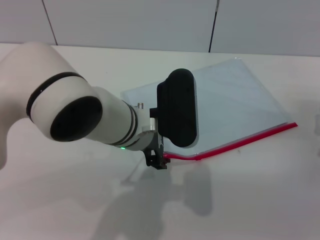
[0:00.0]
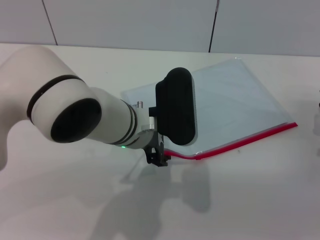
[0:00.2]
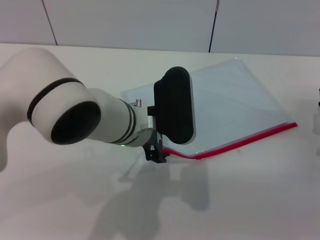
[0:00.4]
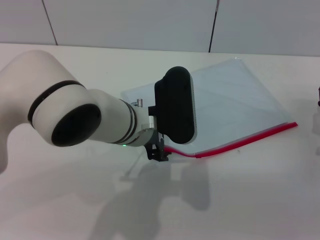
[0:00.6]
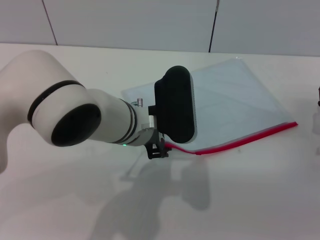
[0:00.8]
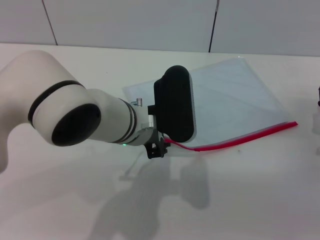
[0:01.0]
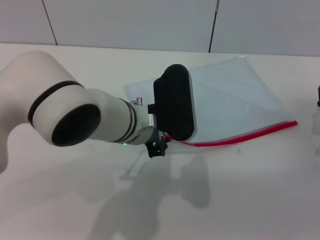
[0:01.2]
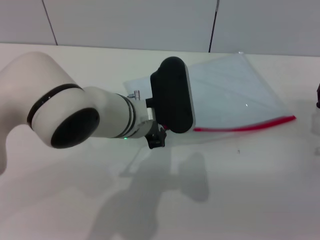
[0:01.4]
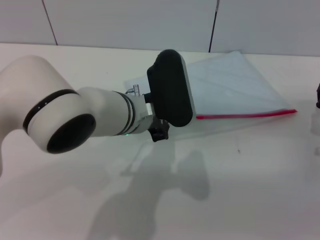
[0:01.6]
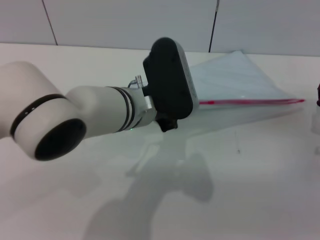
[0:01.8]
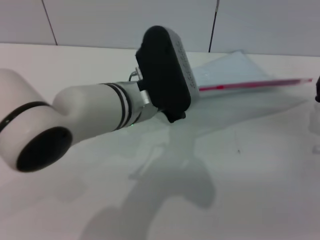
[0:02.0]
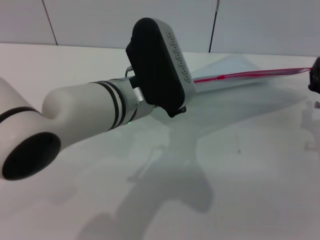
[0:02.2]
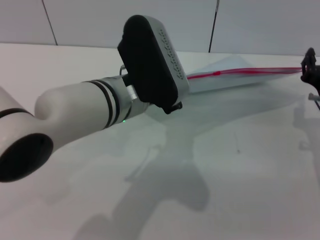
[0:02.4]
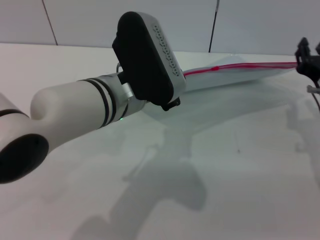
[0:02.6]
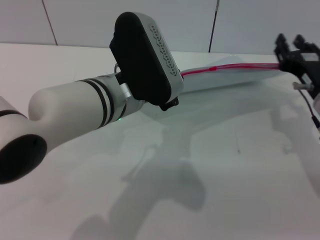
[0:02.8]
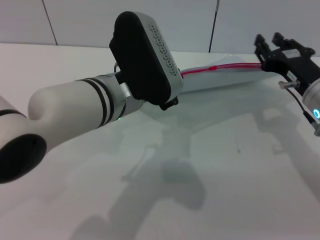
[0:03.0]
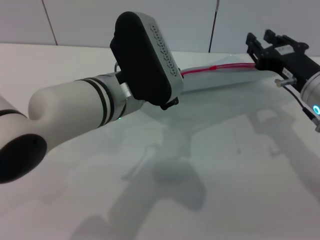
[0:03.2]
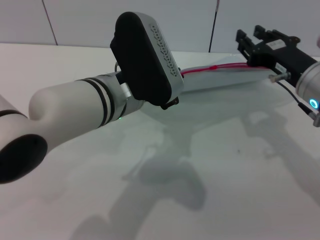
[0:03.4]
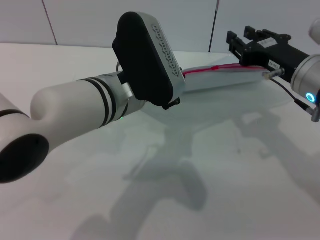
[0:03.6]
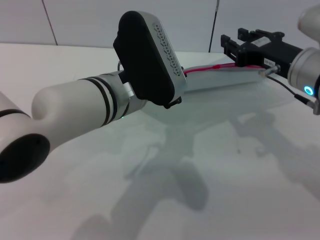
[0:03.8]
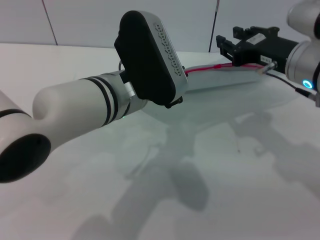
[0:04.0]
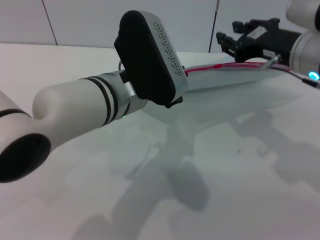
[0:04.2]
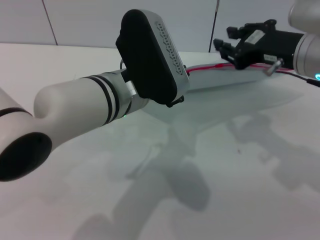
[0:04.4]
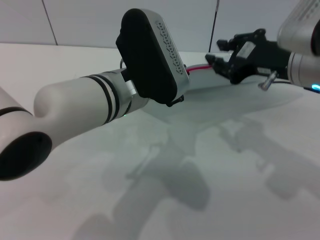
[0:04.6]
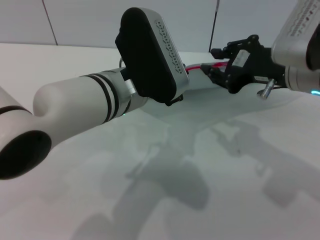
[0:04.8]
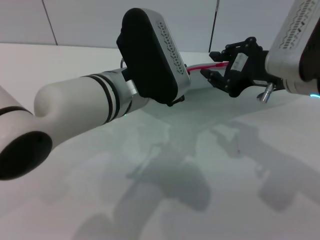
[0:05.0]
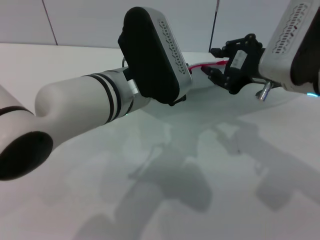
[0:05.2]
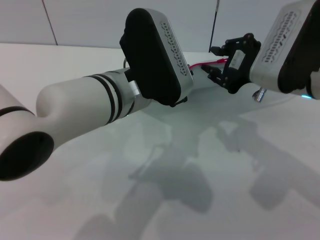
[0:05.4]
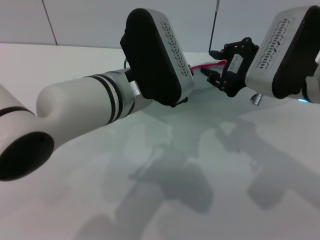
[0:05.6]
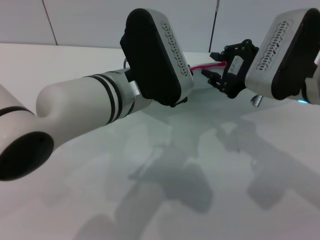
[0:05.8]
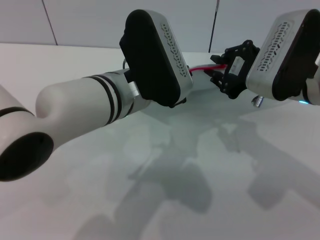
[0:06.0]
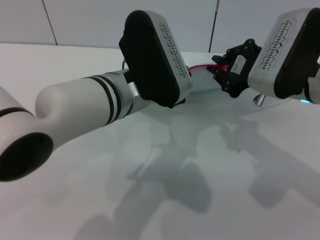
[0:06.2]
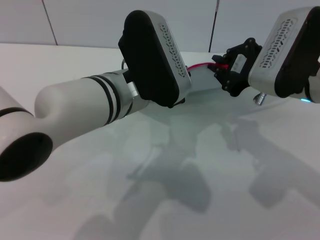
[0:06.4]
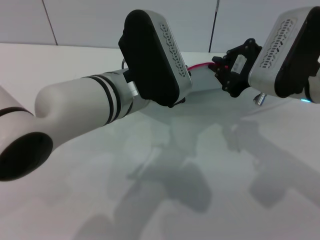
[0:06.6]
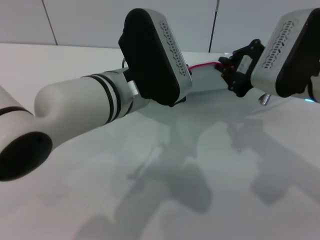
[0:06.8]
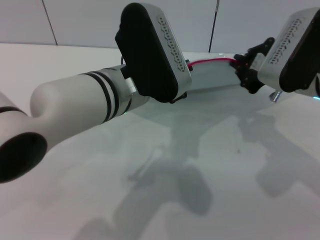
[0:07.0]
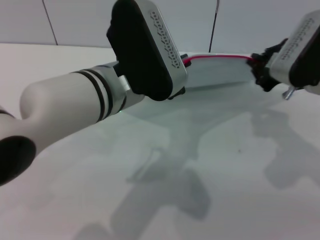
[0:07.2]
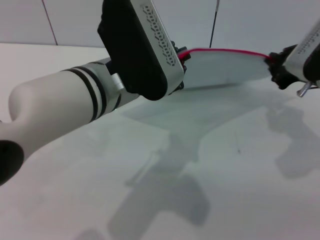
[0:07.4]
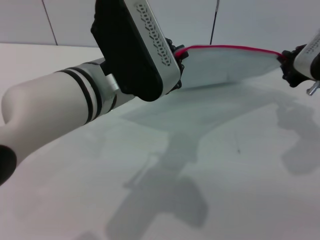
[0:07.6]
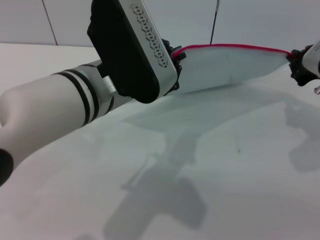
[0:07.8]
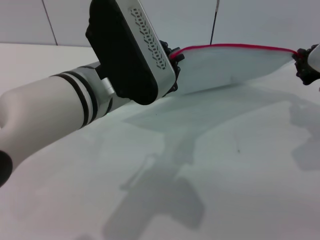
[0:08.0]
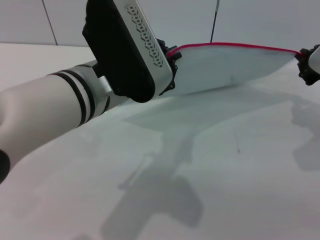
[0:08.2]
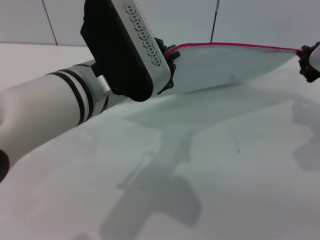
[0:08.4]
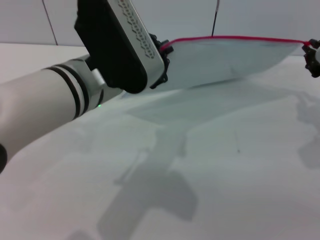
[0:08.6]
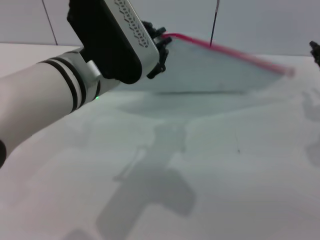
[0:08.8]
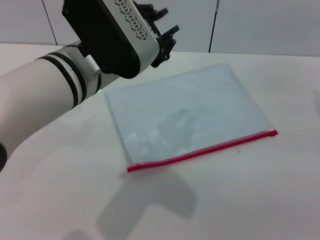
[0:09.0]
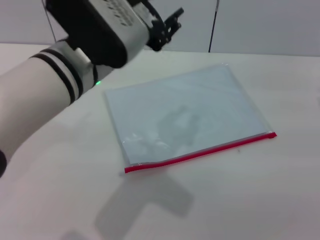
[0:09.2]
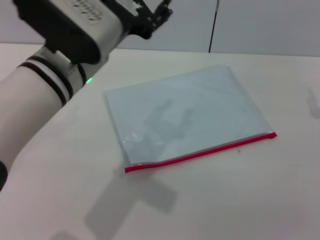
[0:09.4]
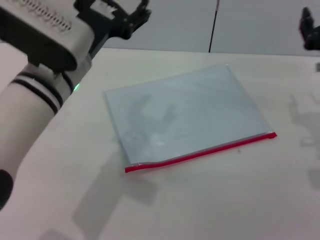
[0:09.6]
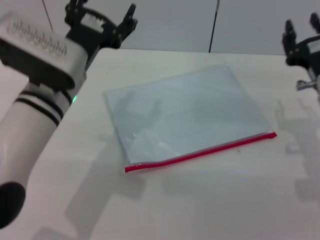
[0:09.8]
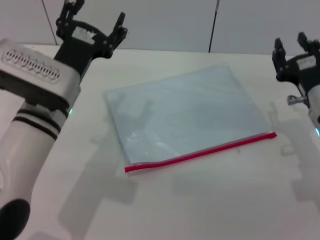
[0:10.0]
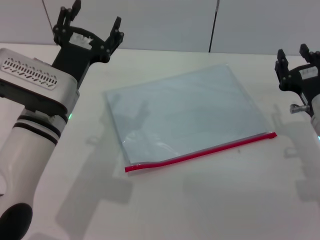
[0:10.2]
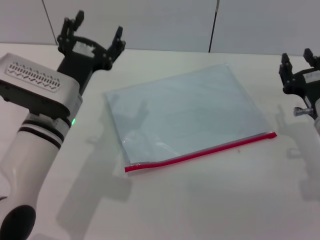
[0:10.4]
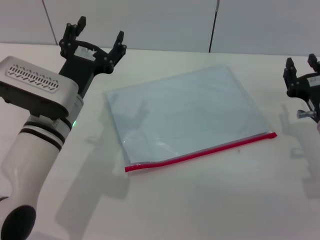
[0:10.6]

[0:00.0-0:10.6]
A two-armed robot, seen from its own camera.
Step, 0:00.0 to 0:03.4: Pick up the transparent plastic bag with the left gripper.
Step, 0:03.6 to 0:08.6: Pulling up the zipper on the transparent plastic bag with the right gripper to close it.
Step, 0:08.8 to 0:09.2: Place the transparent plastic bag.
0:00.0 to 0:01.6: The left gripper closes up.
0:01.6 to 0:03.0: The right gripper is displaced upward and to the left by about 10 cm.
0:03.0 to 0:04.6: The right gripper travels upward by roughly 10 cm.
0:04.6 to 0:06.0: The grippers move only a little.
0:06.0 to 0:07.6: The right gripper goes some 10 cm to the right, and closes.
0:07.6 to 0:09.0: The right gripper shifts roughly 5 cm to the right, and opens up.
0:09.0 to 0:10.6: The left gripper shifts about 15 cm downward and to the left, and opens; the right gripper moves downward, backward and to the left, some 15 cm.
